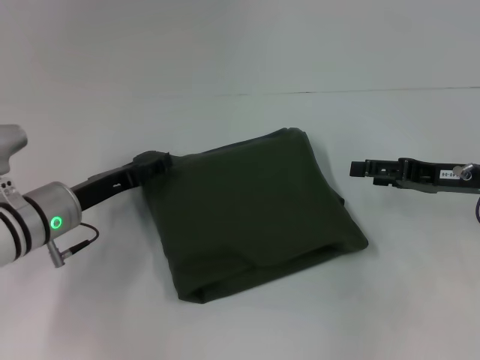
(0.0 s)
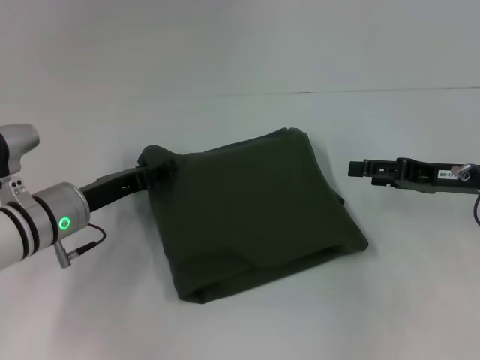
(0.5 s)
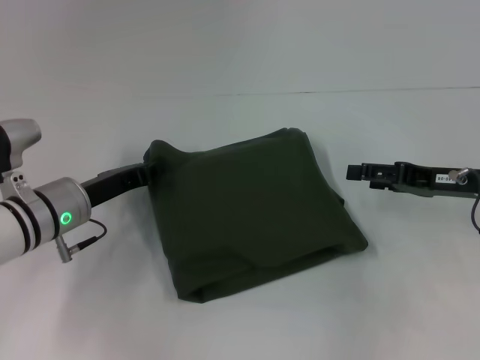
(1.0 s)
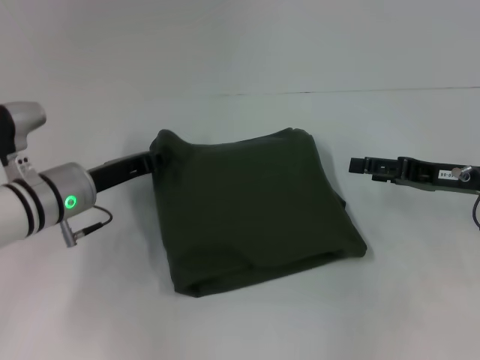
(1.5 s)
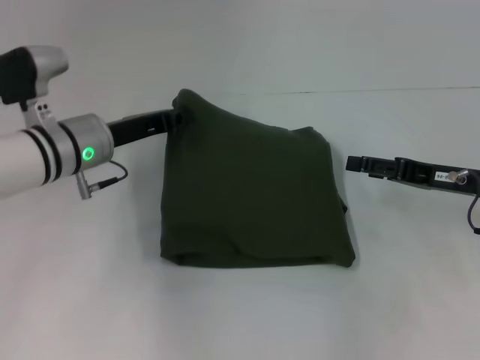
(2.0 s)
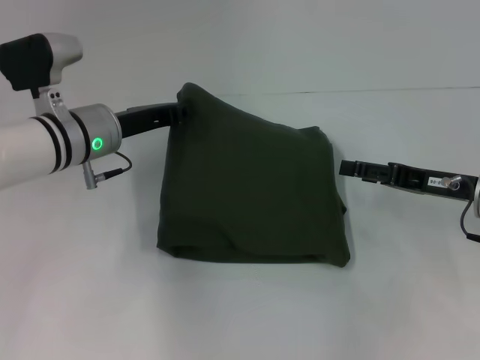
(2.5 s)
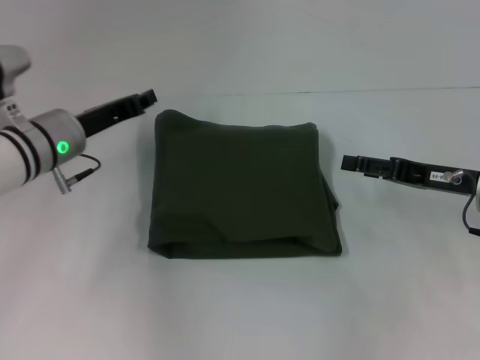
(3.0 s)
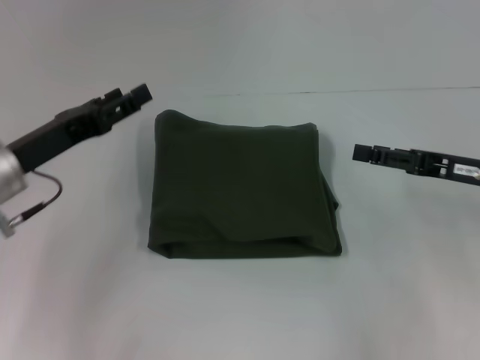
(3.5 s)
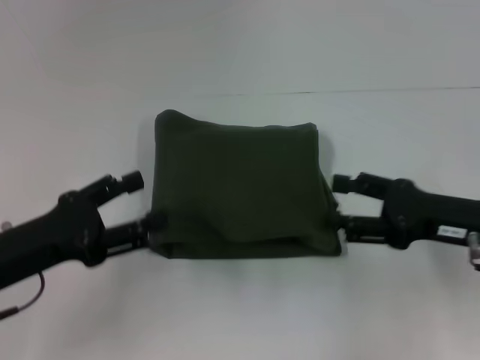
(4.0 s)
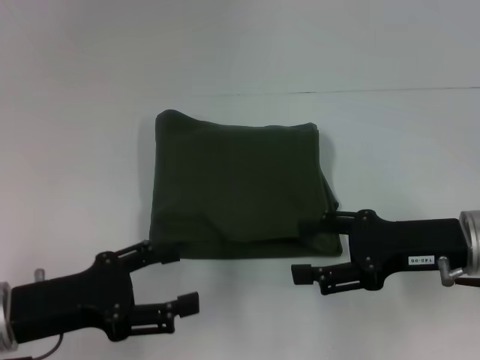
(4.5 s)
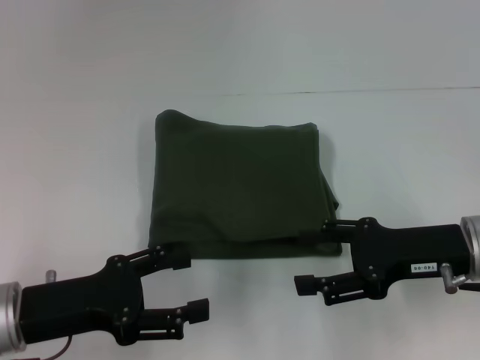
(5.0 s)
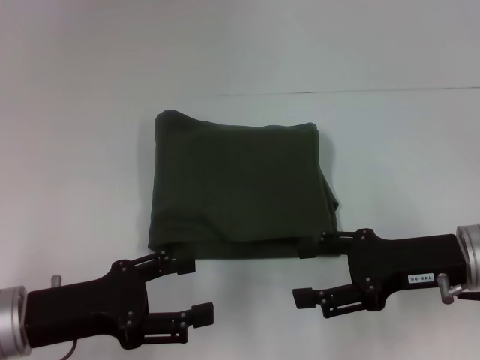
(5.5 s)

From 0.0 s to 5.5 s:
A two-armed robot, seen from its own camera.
From 0.0 s to 2.0 s: The left gripper travels forward and upward by some 10 cm, and closes its fingers.
From 2.0 s to 3.5 s: The left gripper goes about 10 cm backward and to the left, and opens its fingers.
From 3.5 s to 5.5 s: The right gripper is displaced to the left by about 5 cm, while the left gripper heads backward, covering roughly 10 cm, and opens.

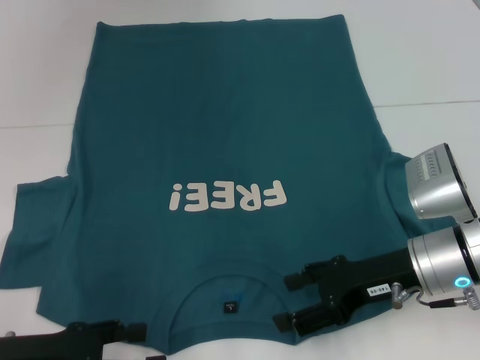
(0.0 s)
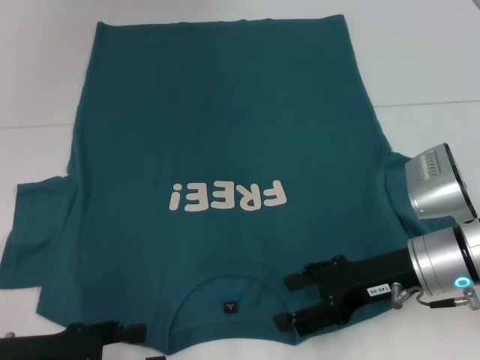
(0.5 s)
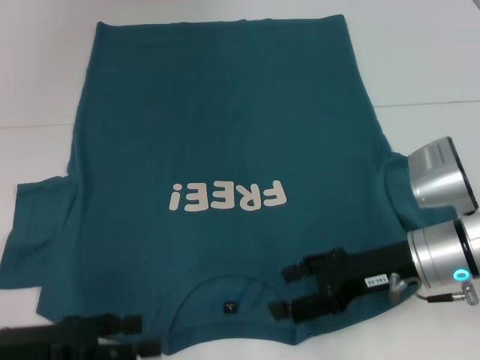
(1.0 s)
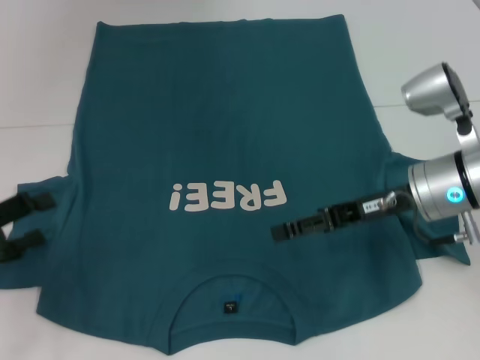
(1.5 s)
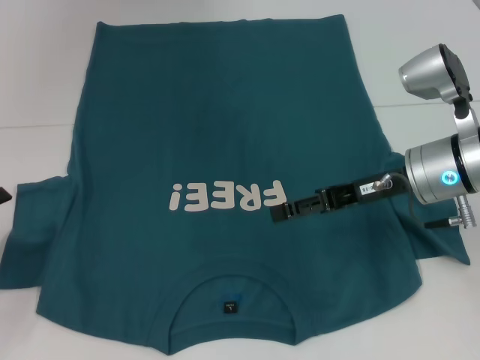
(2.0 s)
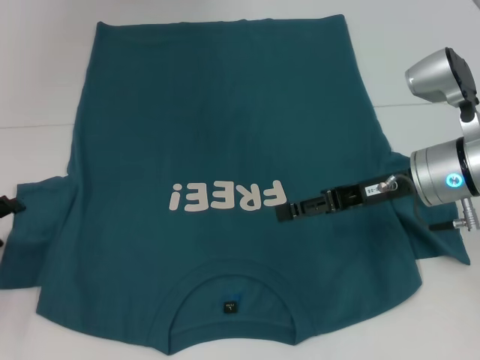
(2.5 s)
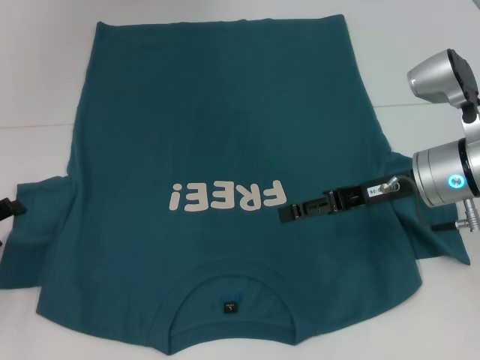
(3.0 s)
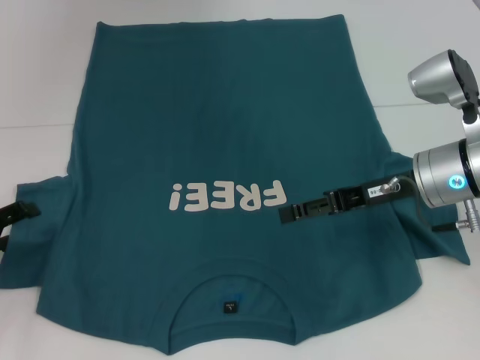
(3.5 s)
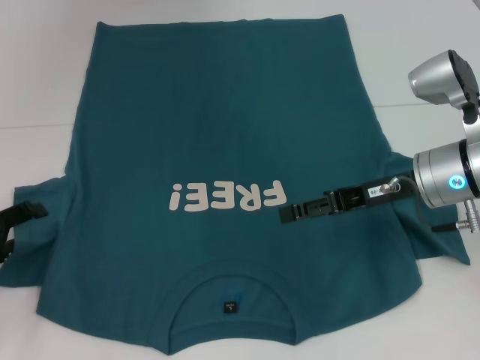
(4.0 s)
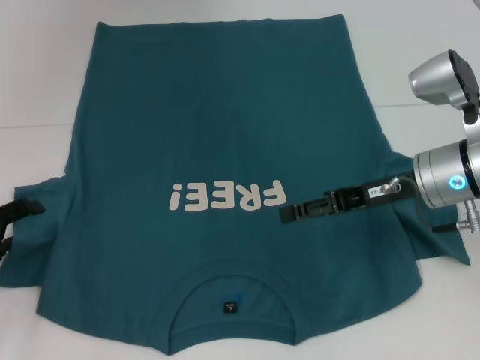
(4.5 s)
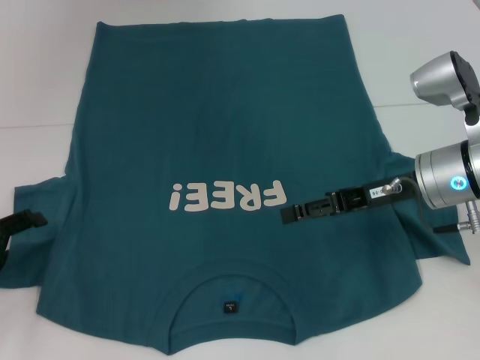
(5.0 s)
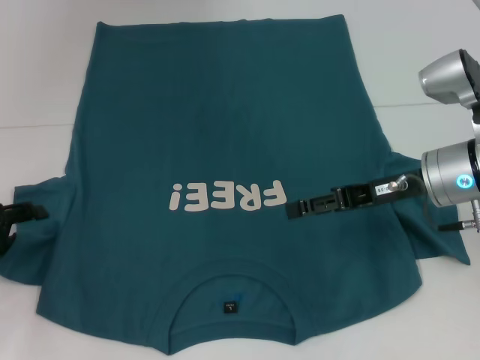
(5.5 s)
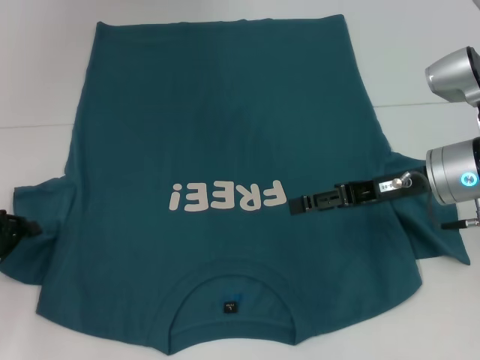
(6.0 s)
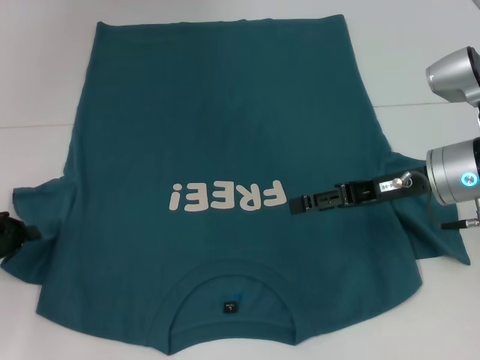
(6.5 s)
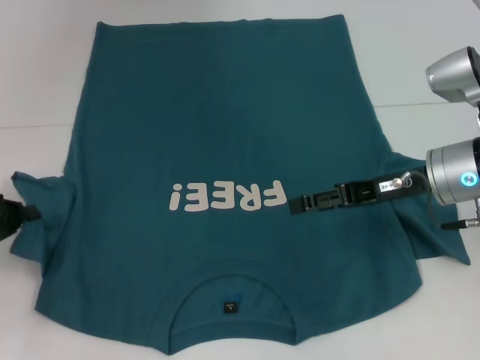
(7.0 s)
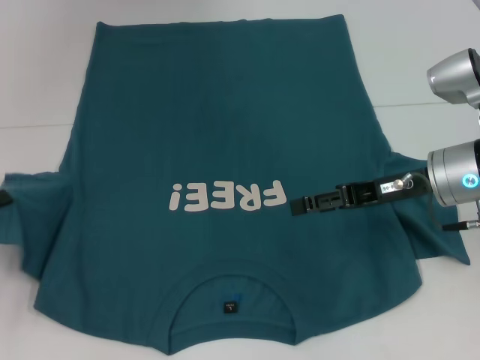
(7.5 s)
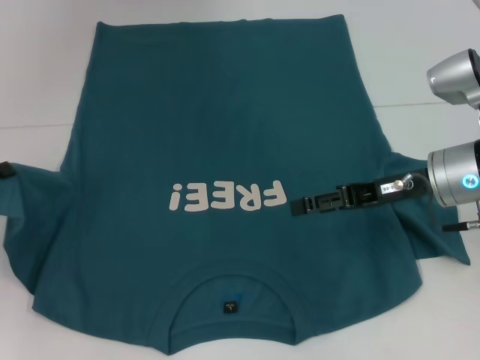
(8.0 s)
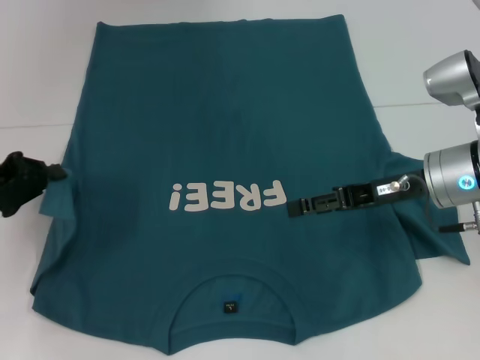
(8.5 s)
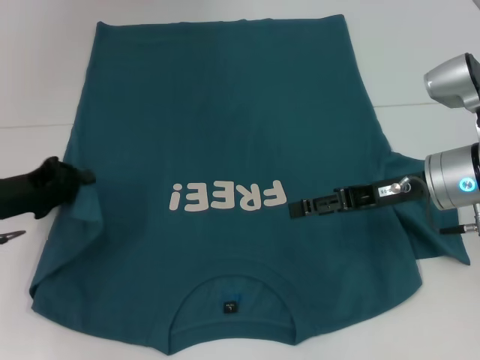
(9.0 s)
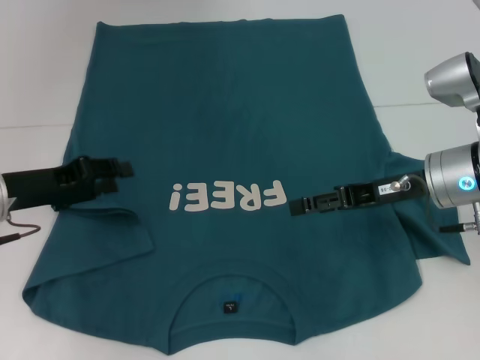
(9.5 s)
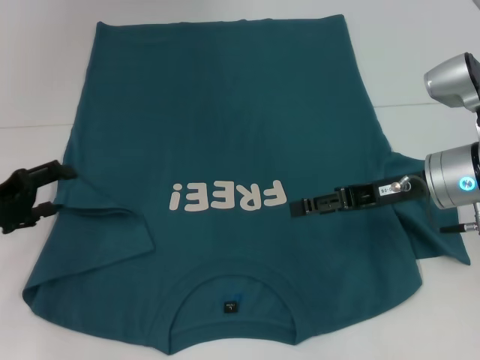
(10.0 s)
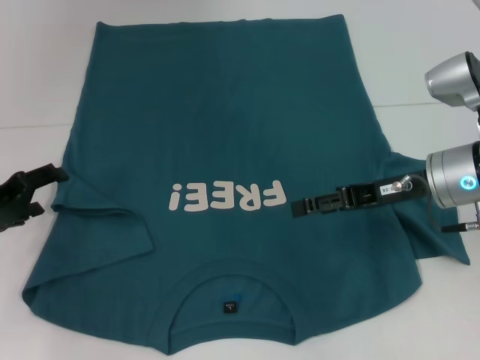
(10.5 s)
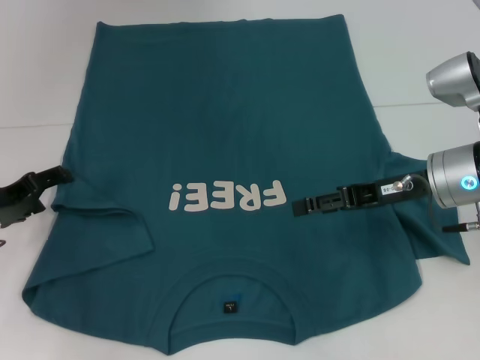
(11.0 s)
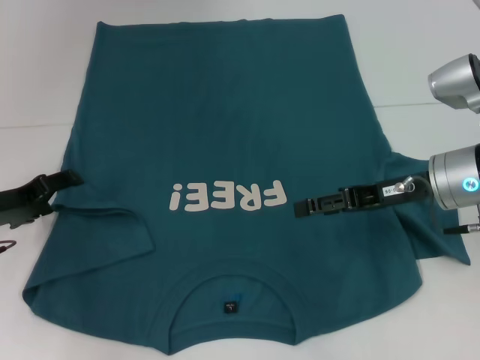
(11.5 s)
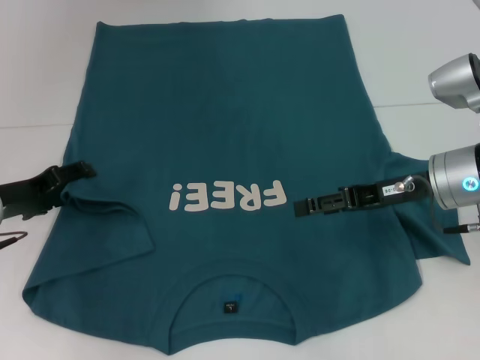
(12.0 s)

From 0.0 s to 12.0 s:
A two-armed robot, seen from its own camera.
From 0.0 s to 2.0 s: The left gripper shifts roughly 10 cm to the left and forward, while the right gripper is displaced forward and upward by some 10 cm.
From 2.0 s to 4.0 s: There are only small adjustments of the grippers.
From 4.0 s to 6.0 s: The left gripper closes its fingers.
From 6.0 s to 8.0 s: The left gripper closes.
From 8.0 s to 10.0 s: The left gripper opens its fingers.
From 10.0 s to 12.0 s: The left gripper changes place by about 5 cm.

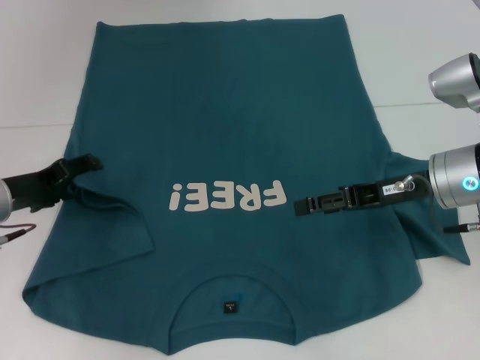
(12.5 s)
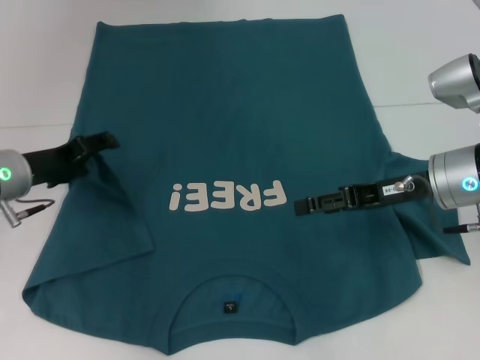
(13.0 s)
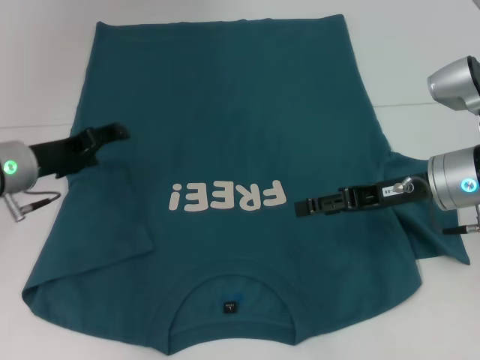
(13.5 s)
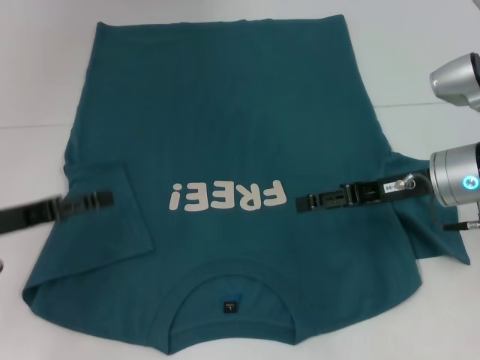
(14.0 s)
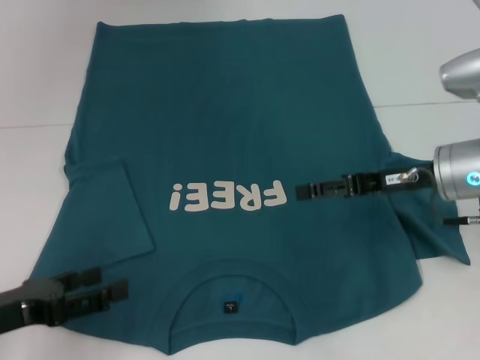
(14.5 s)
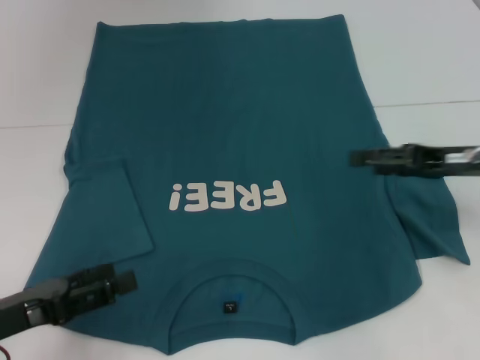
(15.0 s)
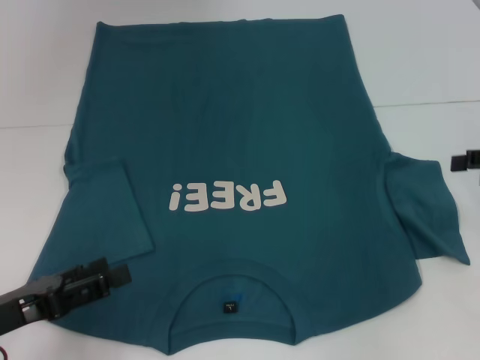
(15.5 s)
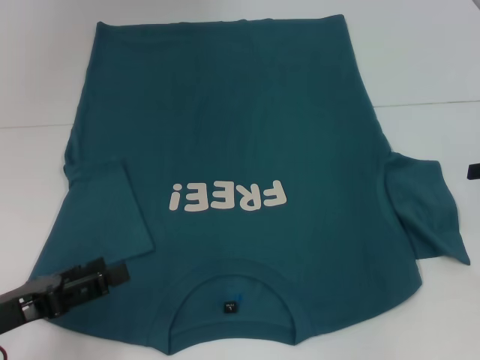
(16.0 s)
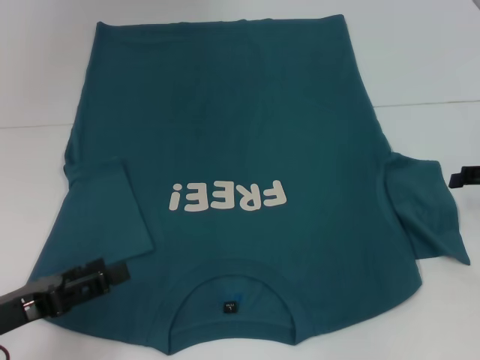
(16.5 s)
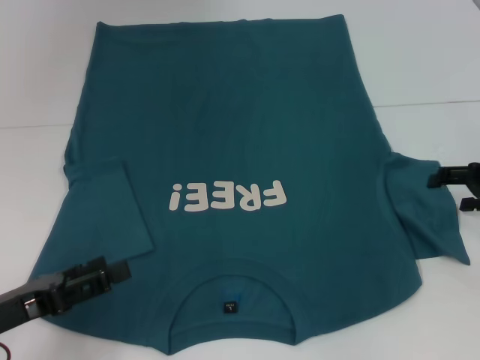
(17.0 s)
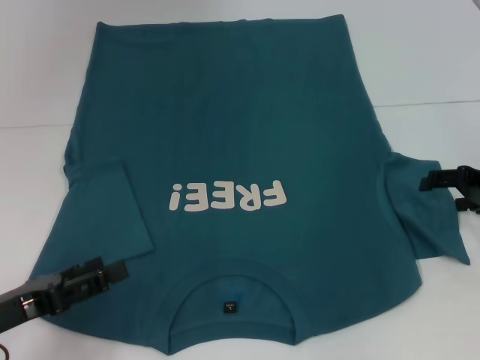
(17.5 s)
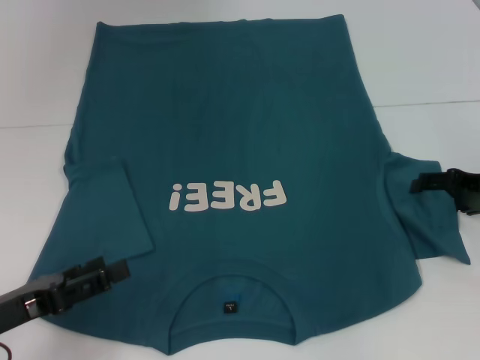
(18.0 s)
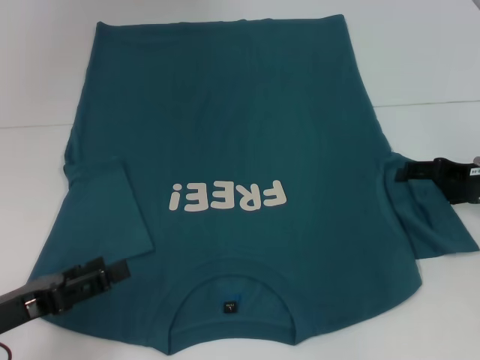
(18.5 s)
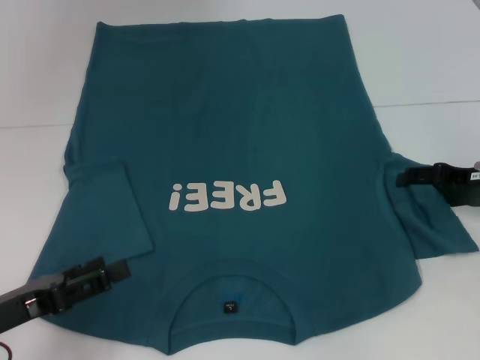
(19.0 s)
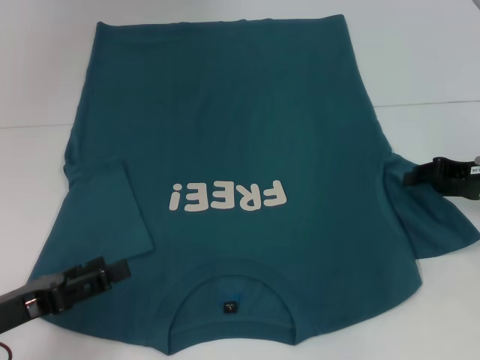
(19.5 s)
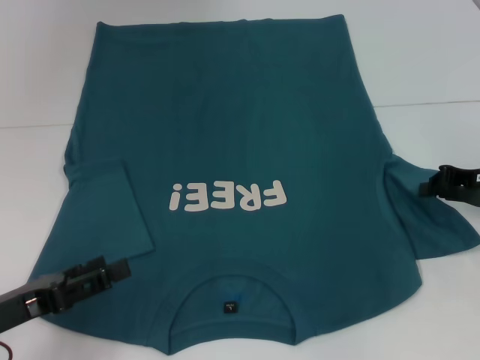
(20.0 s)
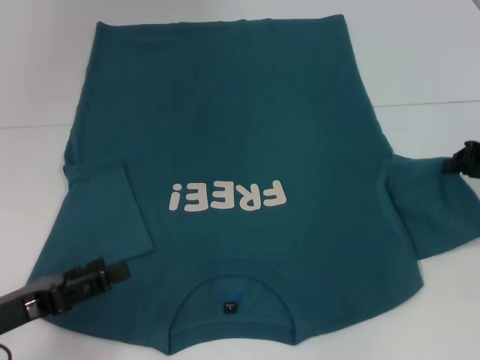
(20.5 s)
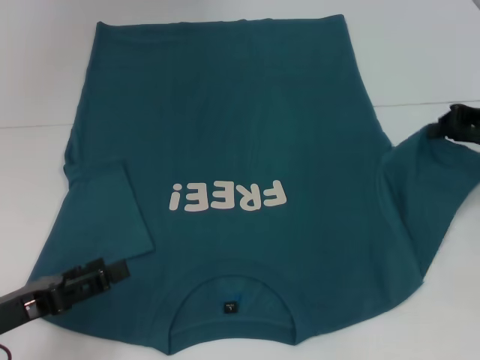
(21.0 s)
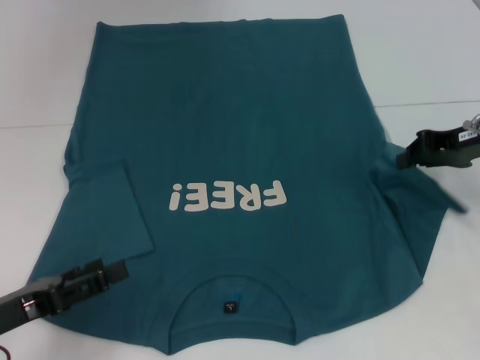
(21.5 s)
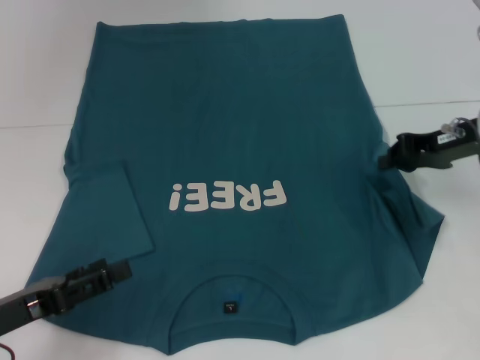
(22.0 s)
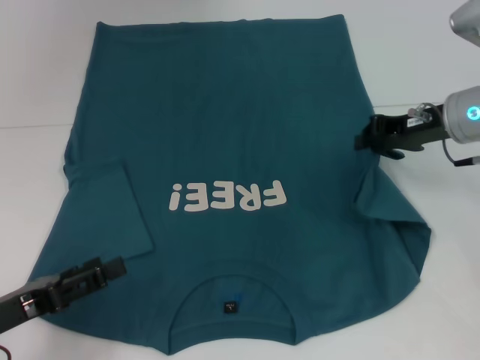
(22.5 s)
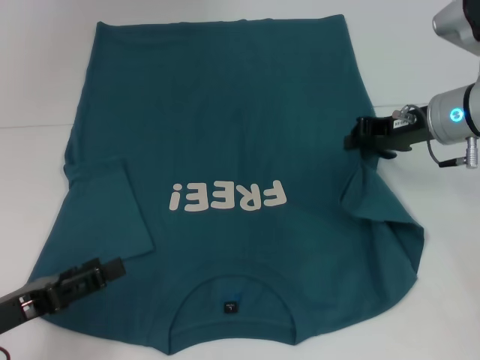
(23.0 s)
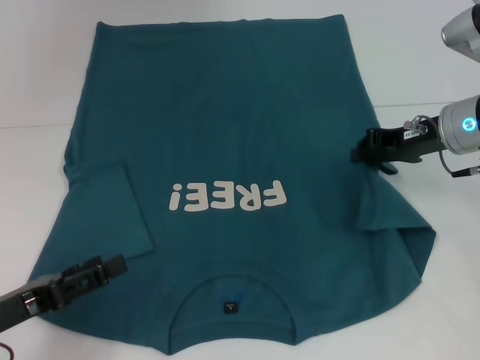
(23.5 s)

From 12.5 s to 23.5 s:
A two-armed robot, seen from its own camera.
From 12.5 s to 14.5 s: The left gripper travels backward by some 15 cm.
From 14.5 s to 16.0 s: The right gripper goes approximately 15 cm to the right.
From 16.0 s to 18.0 s: The right gripper shifts about 10 cm downward and to the left.
From 18.0 s to 20.0 s: The right gripper closes.
From 20.0 s to 21.5 s: The right gripper heads upward, covering about 5 cm.
From 21.5 s to 23.5 s: The right gripper travels to the left by about 5 cm.
